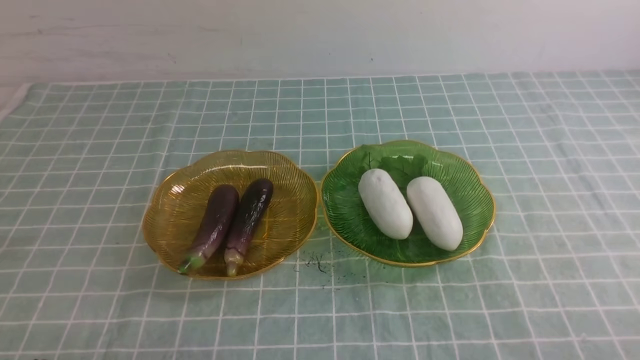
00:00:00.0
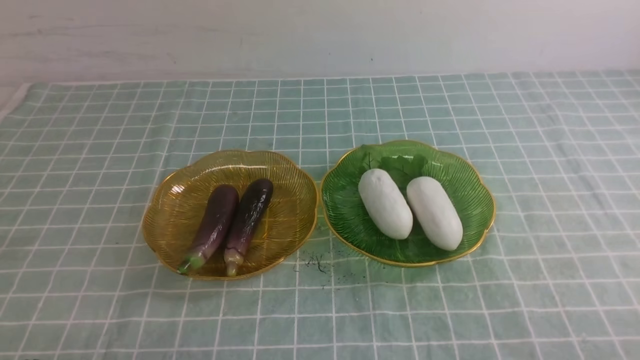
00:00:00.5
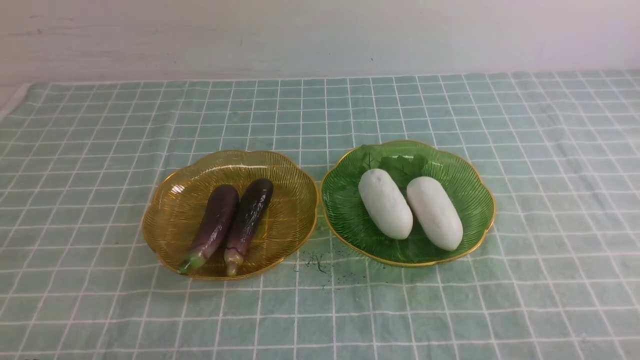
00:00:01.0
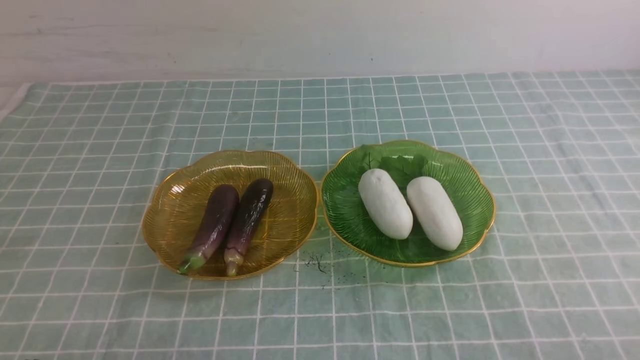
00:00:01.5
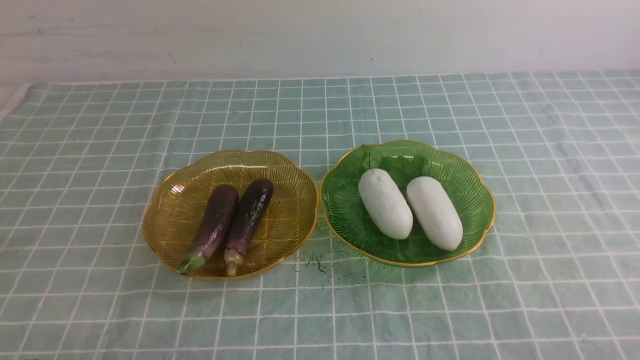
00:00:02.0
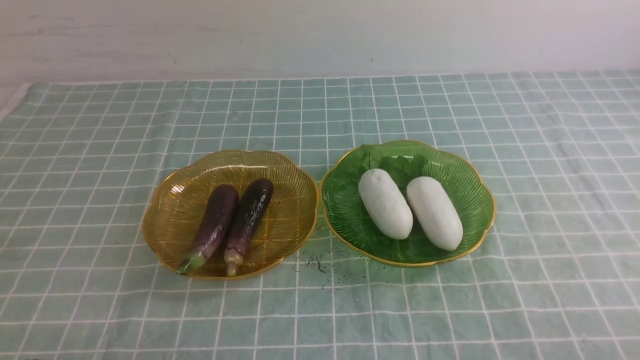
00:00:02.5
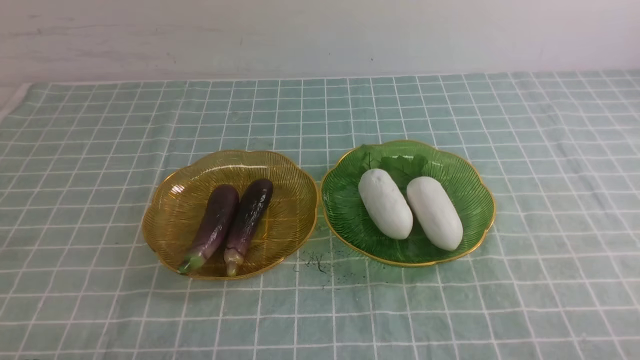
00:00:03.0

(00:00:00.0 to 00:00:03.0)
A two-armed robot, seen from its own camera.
00:00:00.0 - 00:00:03.0: Both grippers stay about where they are.
